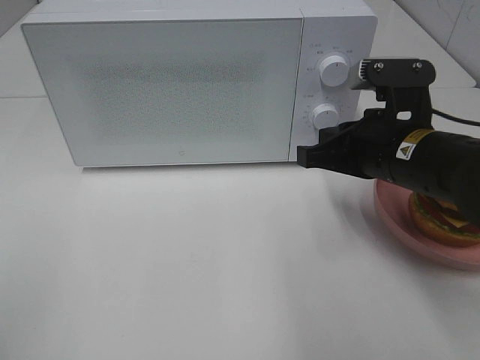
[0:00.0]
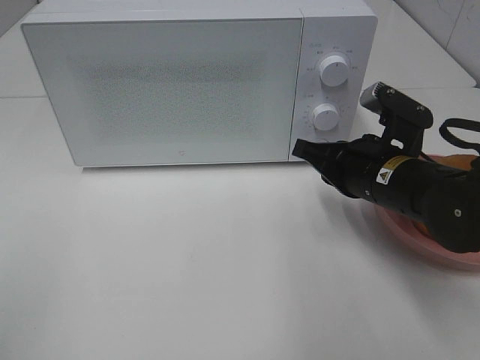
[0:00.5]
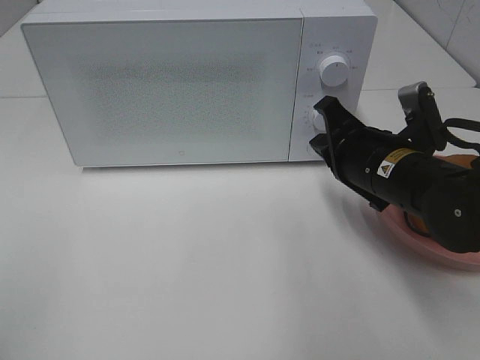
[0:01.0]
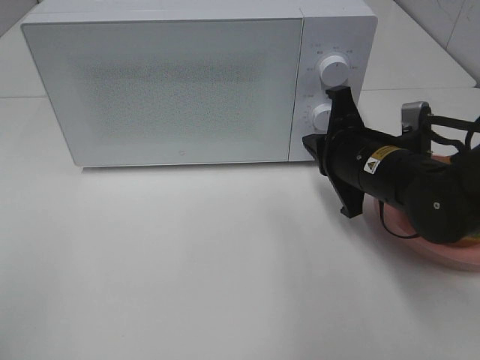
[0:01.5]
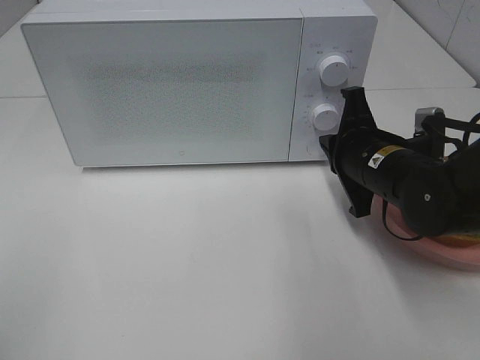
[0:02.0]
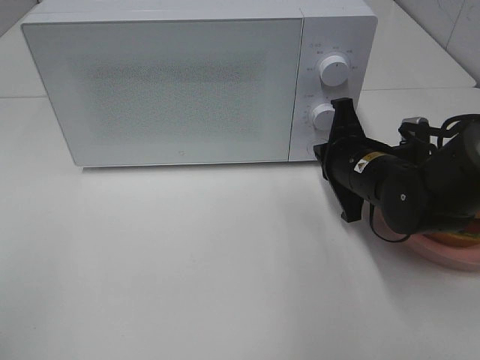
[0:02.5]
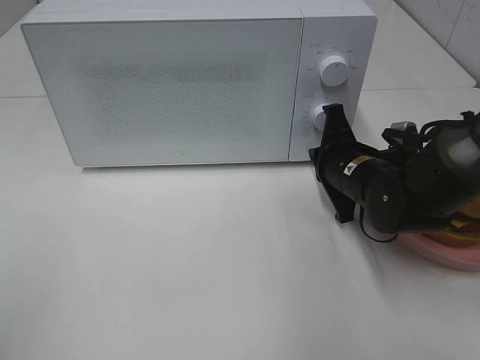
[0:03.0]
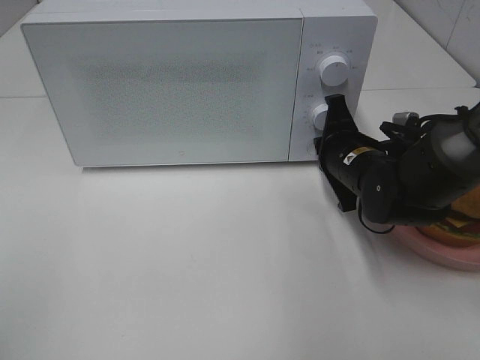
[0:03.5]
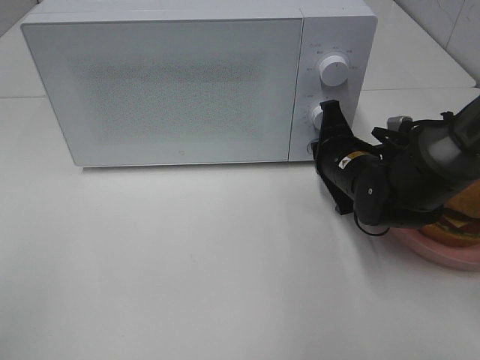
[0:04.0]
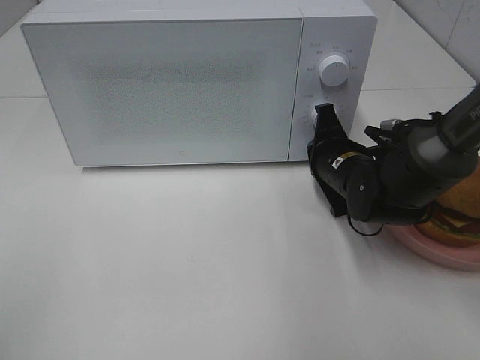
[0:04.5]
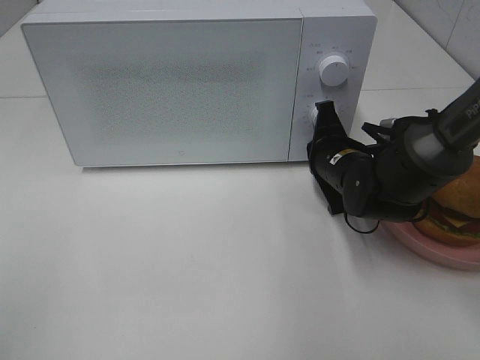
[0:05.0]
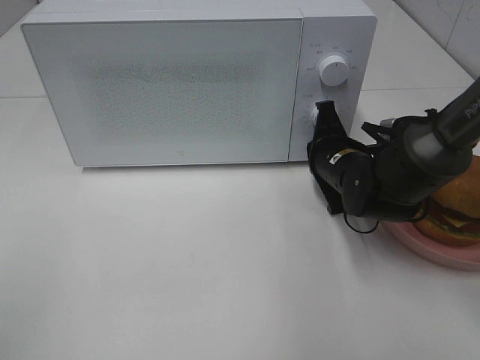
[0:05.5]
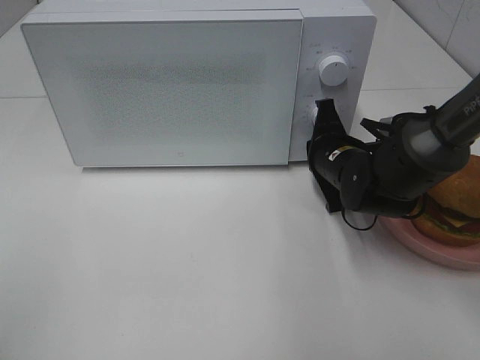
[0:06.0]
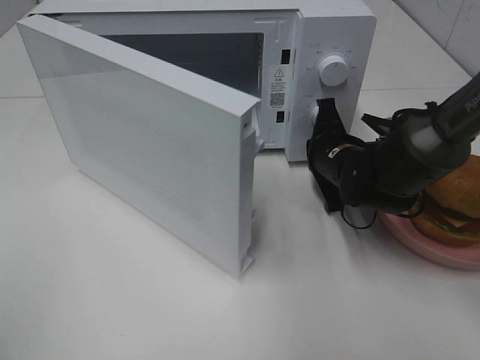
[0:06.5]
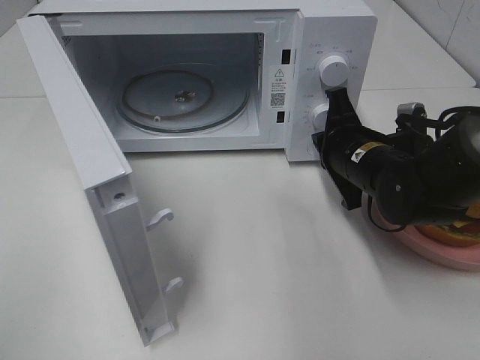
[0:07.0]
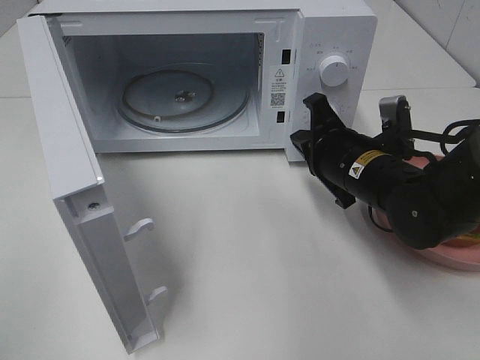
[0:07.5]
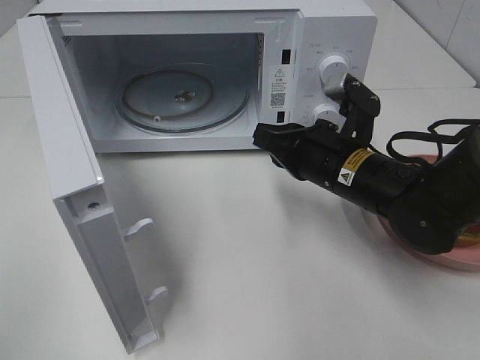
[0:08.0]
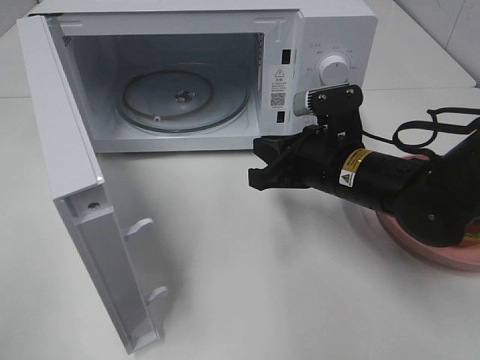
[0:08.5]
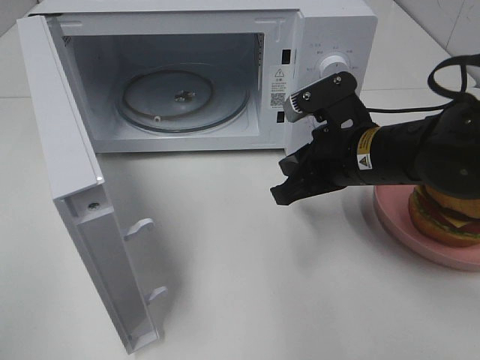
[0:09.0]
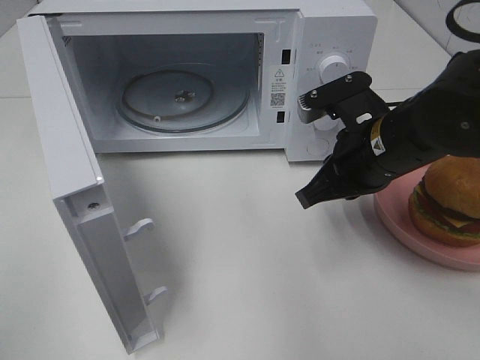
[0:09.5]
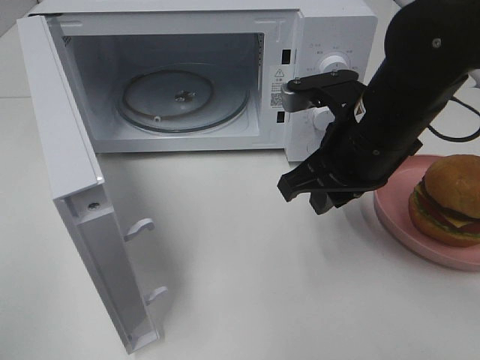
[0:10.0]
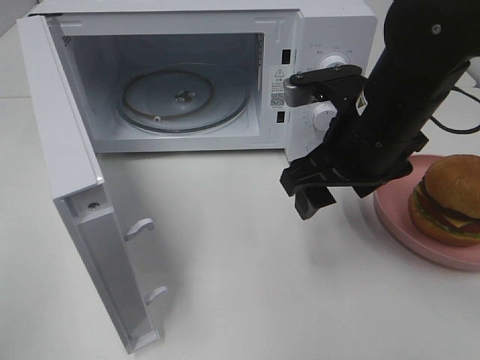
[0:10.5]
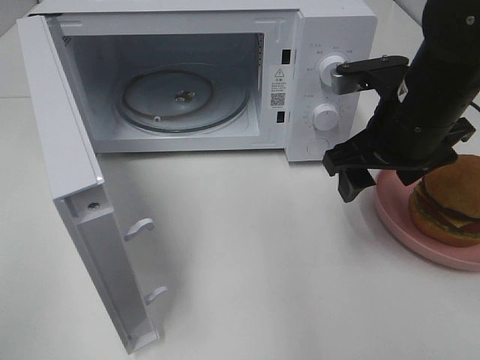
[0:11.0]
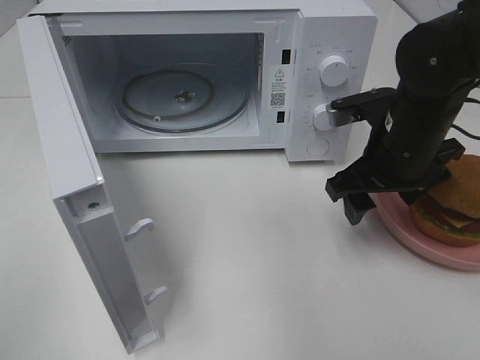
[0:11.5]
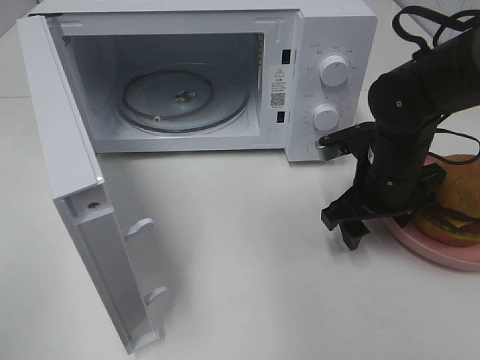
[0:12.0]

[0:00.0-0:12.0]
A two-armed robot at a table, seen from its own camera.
Task of the whole recording: Heat the burger.
Step, 0.0 to 6.5 s: Right hand: press the switch.
0.0 to 2.0 s: The right gripper moves about 5 cm.
2.0 to 4.0 s: The right gripper shifts by approximately 5 cm.
4.0 to 6.0 s: The grippers stay close to where they were, moving slightly.
6.0 to 8.0 s: The right gripper is displaced backward by some 5 cm.
8.0 to 10.0 s: The right gripper moves upward, some 10 cm.
10.0 to 12.0 s: The right gripper shifts some 10 cm downward and to the right, and opens its fingers.

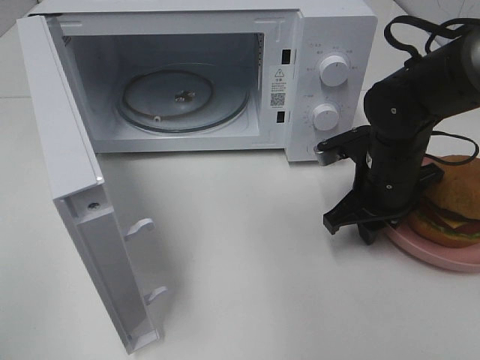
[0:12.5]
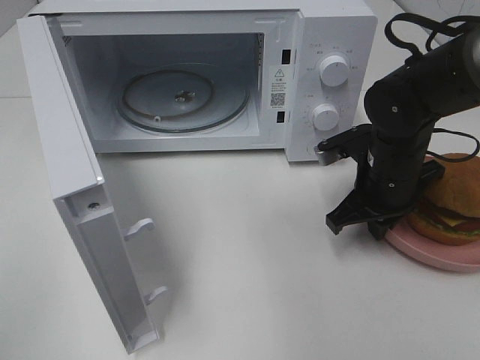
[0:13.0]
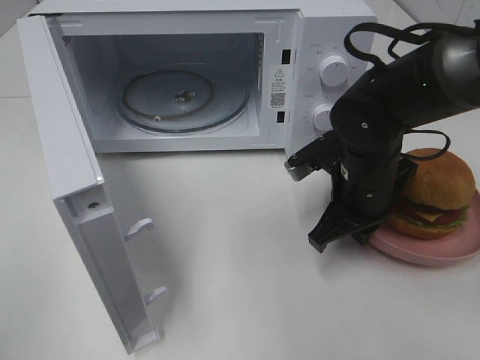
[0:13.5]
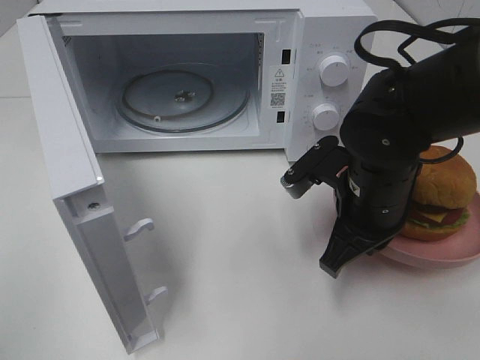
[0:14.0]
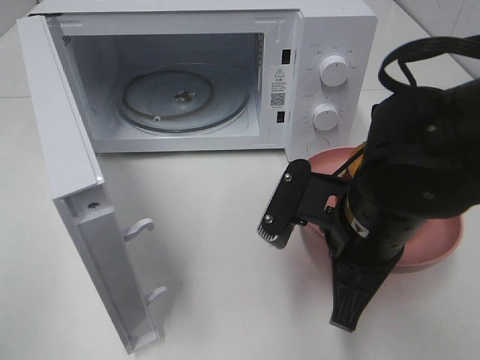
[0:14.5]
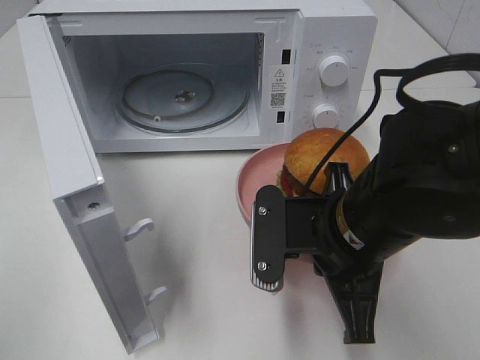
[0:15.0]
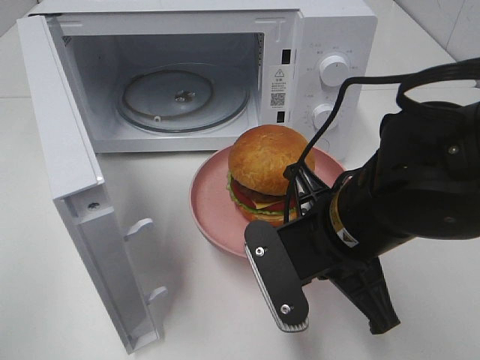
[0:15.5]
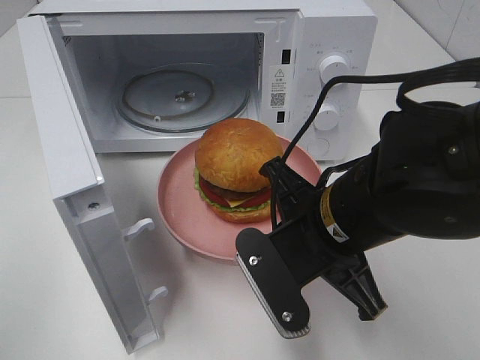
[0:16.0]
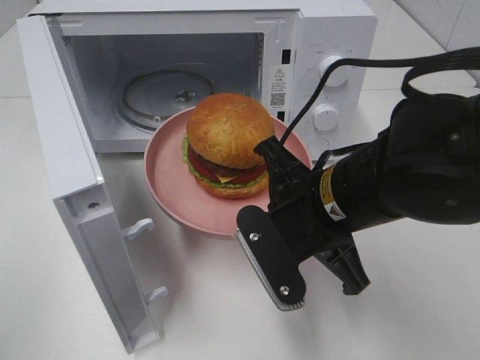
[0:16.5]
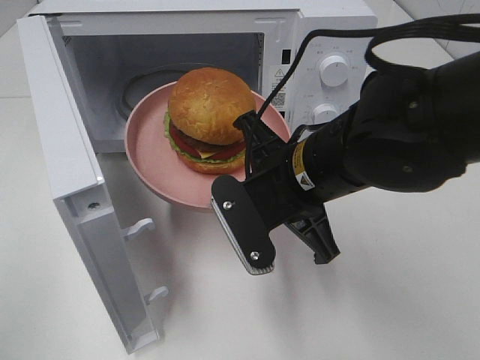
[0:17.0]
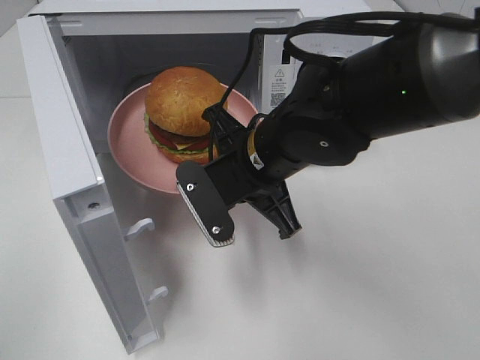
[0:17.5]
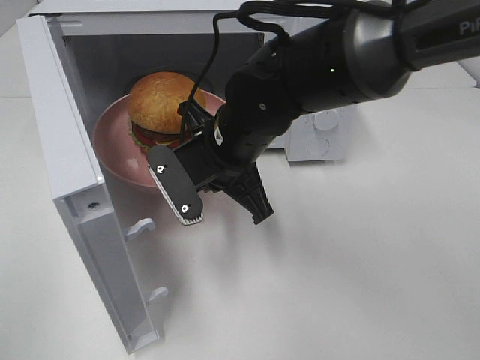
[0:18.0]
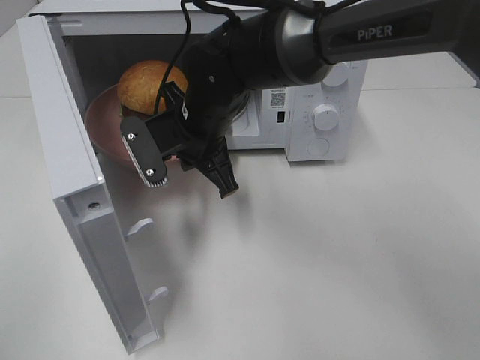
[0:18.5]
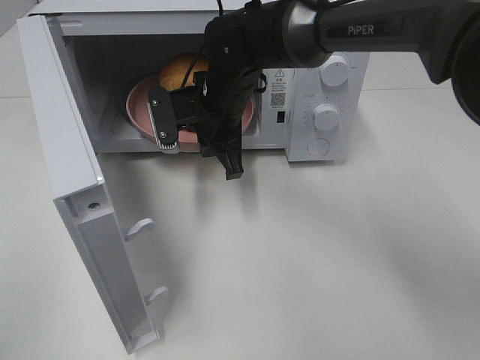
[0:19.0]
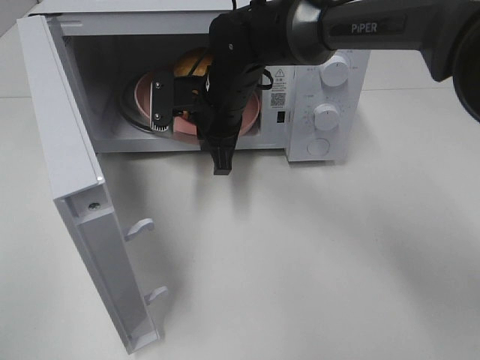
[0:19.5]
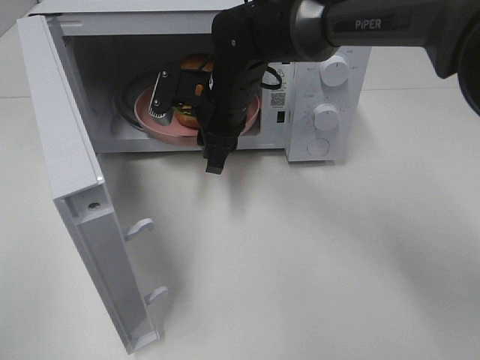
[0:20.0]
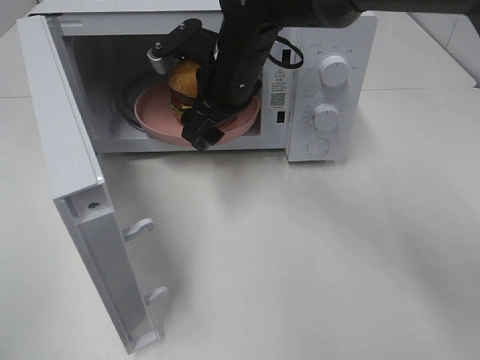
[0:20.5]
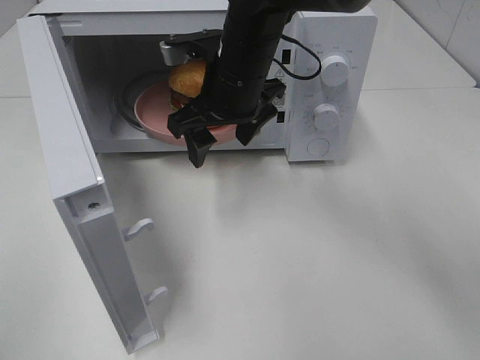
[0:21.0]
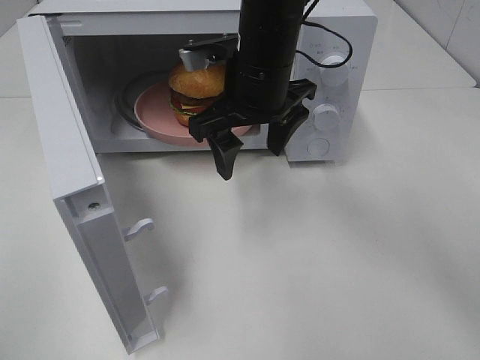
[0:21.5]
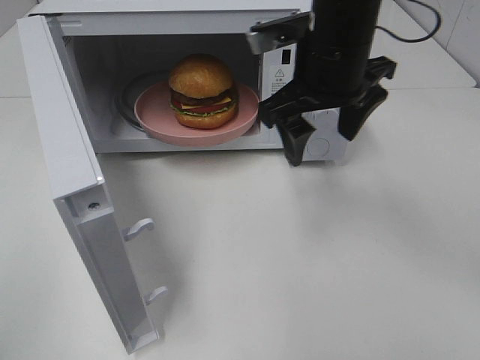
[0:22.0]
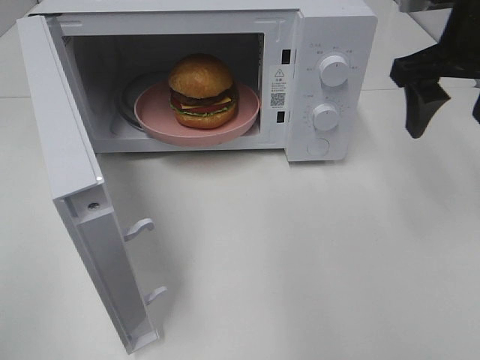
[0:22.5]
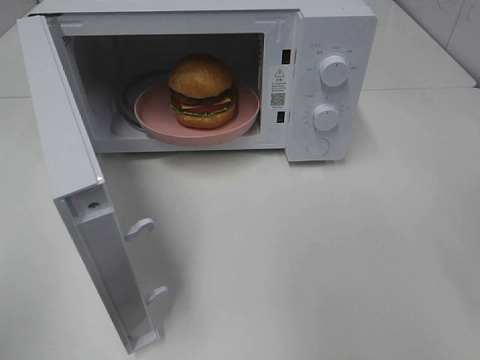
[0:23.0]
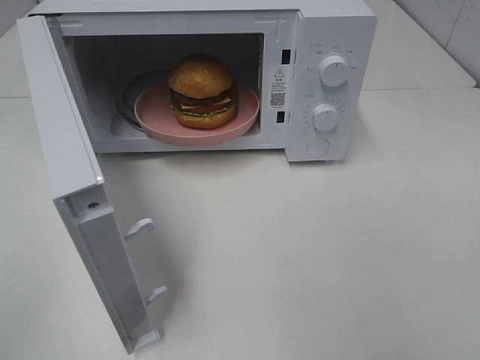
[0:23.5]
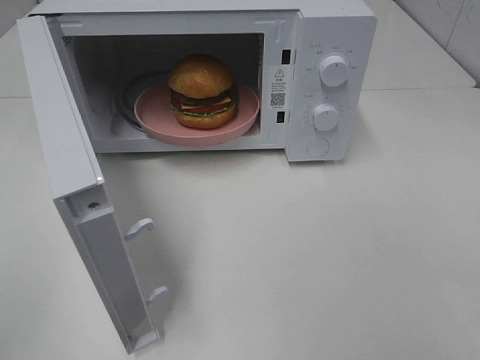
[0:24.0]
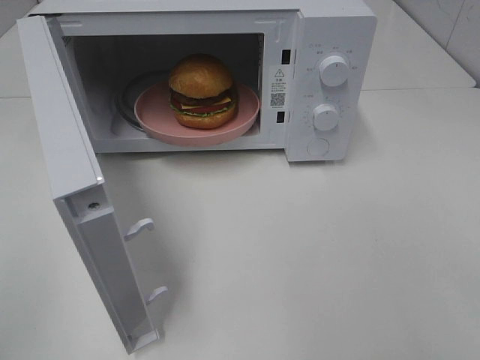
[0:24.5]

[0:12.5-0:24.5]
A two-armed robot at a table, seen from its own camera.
Task of the whole recording: Heat the burger.
Step, 13.0 to 19.5 s: Right hand: place the plate in the microwave.
12.5 to 14.5 s: The right gripper goes some 15 cm backward, to the left and upward, and closes its fingers.
16.5 to 18.5 s: The right gripper moves forward and to the left, approximately 20 cm.
18.5 to 20.5 s: The right gripper changes place by roughly 5 cm, and opens.
20.5 to 22.5 s: The right gripper is displaced to the right and upward by approximately 25 cm.
22.5 to 24.5 s: The right gripper heads backward, covering about 30 cm.

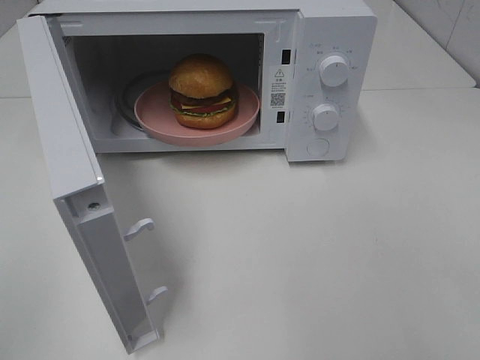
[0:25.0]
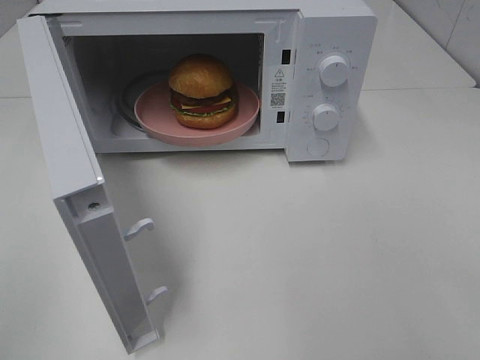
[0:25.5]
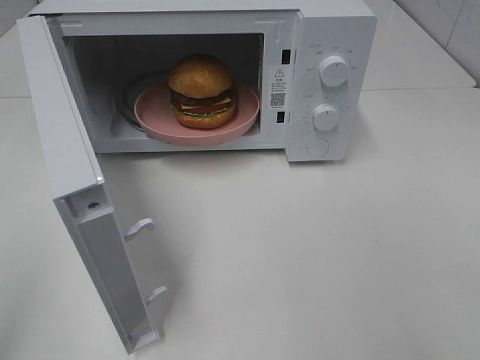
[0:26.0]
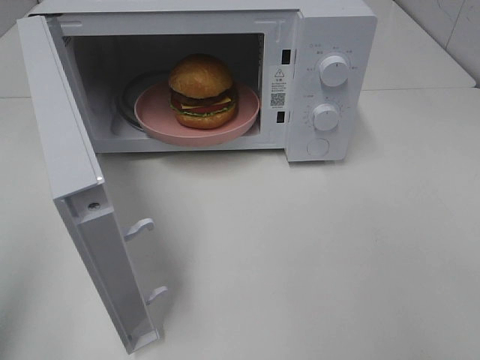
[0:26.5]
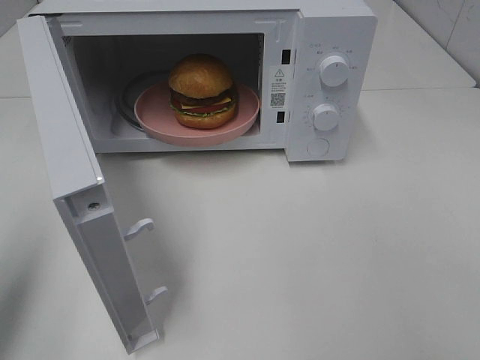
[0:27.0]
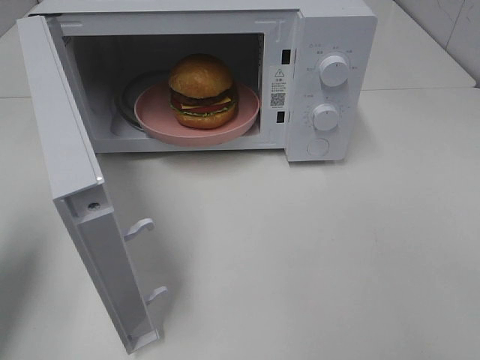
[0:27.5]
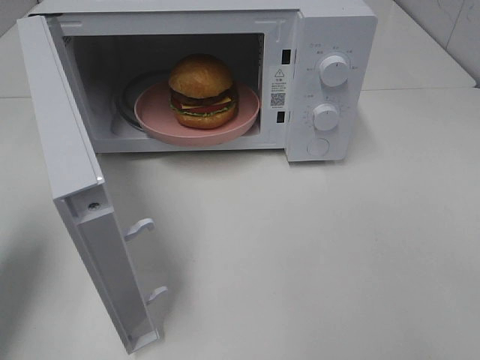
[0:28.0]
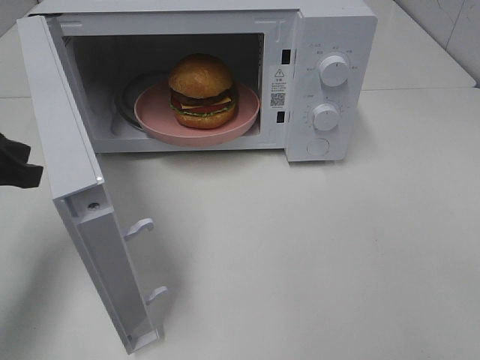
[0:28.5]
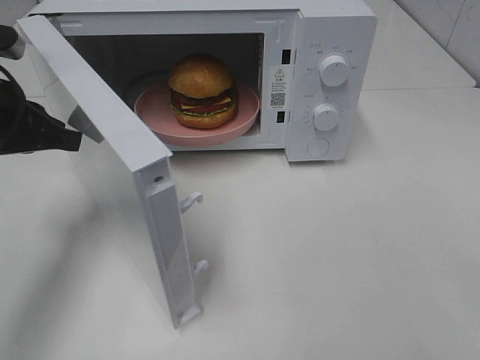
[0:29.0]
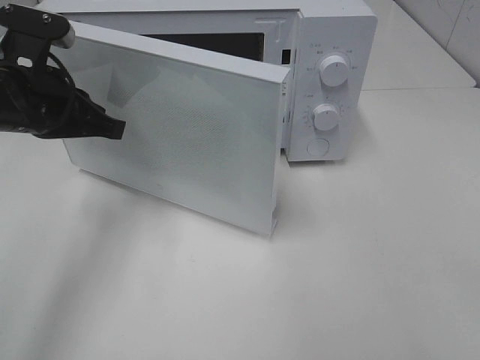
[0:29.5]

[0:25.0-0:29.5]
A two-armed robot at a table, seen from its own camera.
Task of the whole recording: Heat the burger.
25.0 to 27.0 s: The left gripper moves forward, some 15 cm.
27.0 to 29.5 s: The left gripper shifts about 20 cm forward, to the right and downward.
